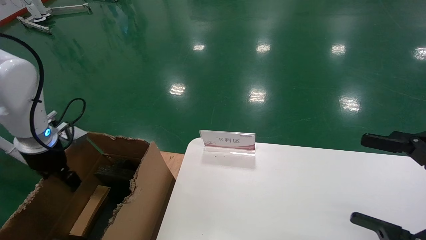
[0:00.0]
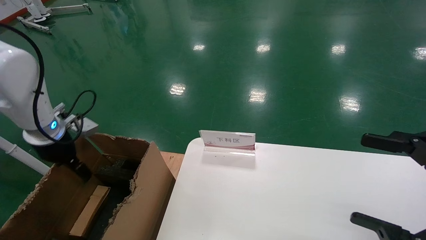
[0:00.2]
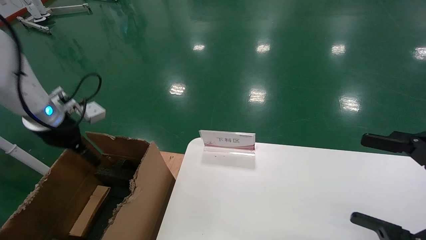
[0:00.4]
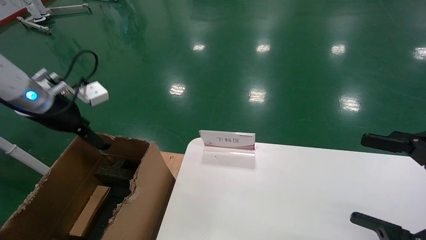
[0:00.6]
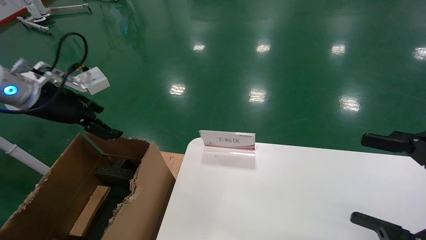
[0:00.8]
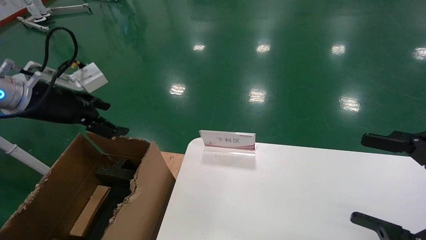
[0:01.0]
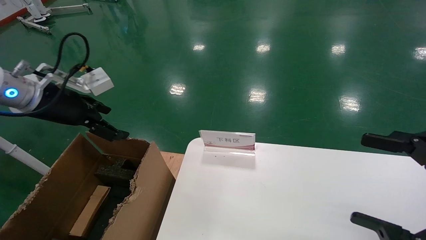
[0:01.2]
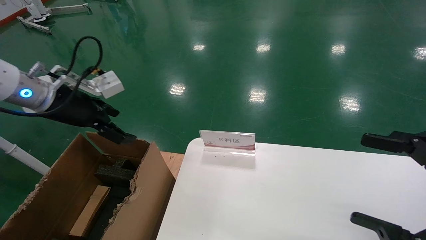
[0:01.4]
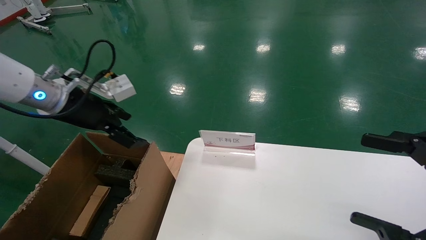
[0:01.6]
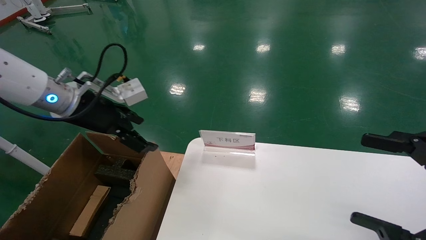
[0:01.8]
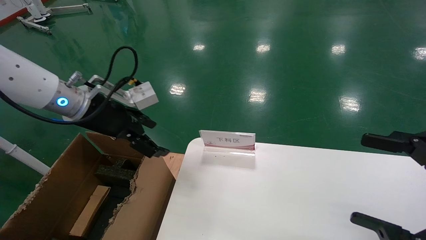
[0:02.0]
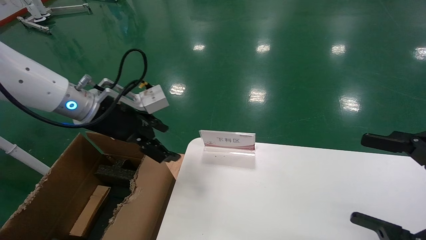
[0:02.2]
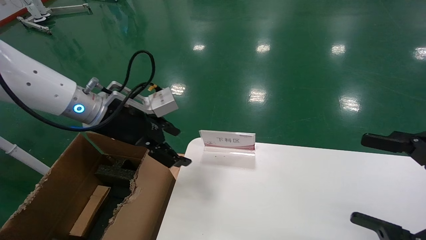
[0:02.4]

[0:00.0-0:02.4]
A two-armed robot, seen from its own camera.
Task of the whole recording: pick up the small cardboard box and load it into the large cardboard box.
0:00.0 to 0:01.2: The left gripper goes approximately 10 cm upward and to the right, and opens its fingers.
0:01.2 to 0:02.4: The left gripper travels to the right by approximately 10 cm.

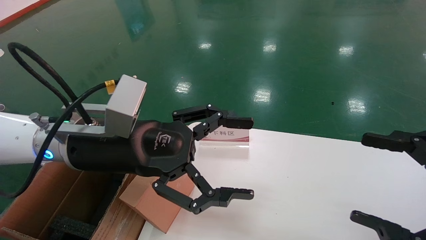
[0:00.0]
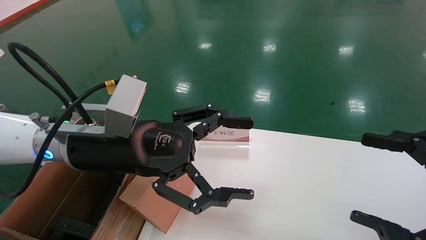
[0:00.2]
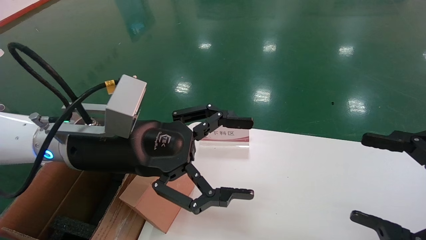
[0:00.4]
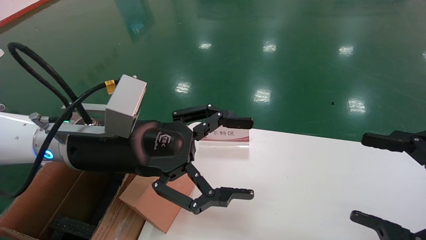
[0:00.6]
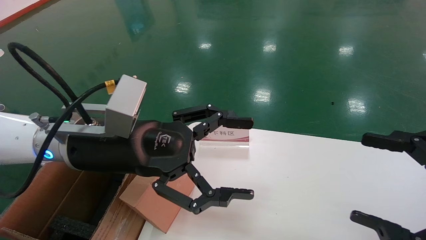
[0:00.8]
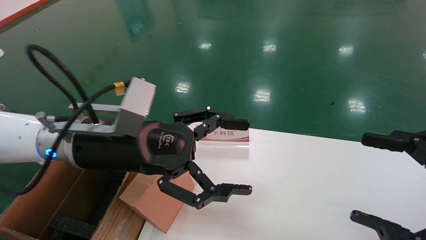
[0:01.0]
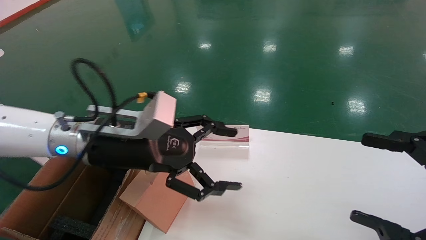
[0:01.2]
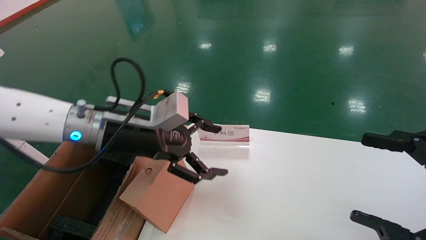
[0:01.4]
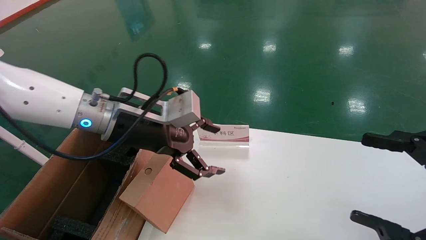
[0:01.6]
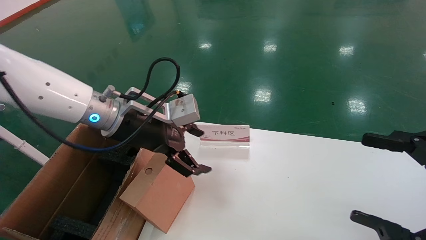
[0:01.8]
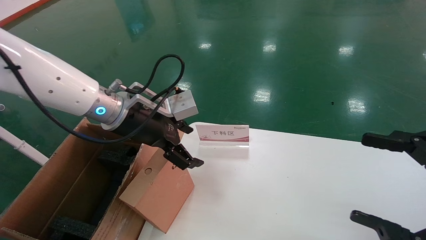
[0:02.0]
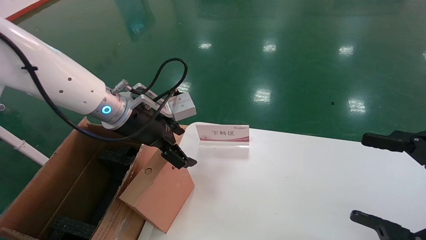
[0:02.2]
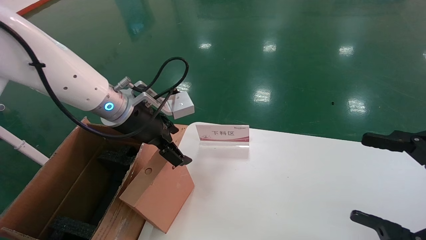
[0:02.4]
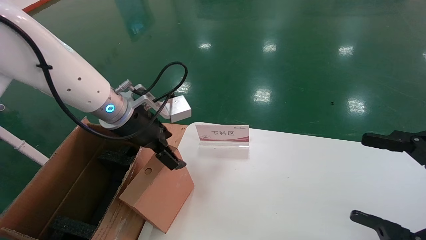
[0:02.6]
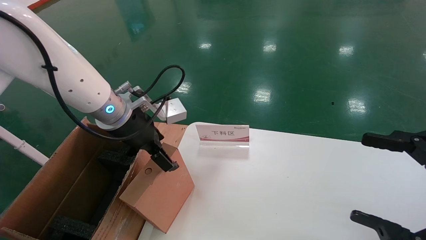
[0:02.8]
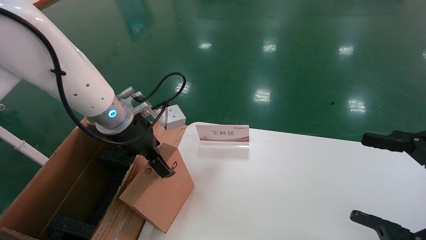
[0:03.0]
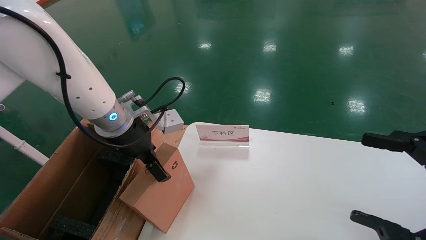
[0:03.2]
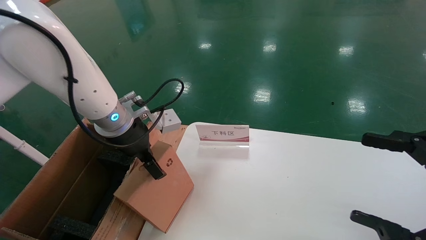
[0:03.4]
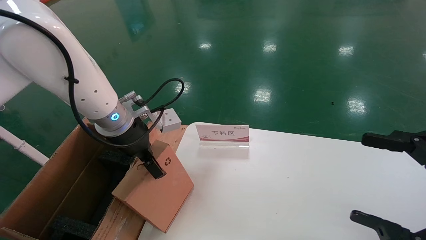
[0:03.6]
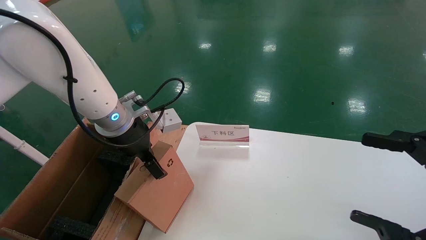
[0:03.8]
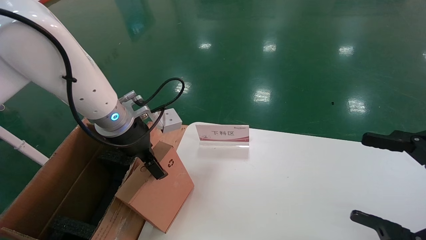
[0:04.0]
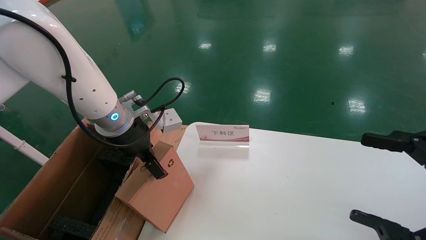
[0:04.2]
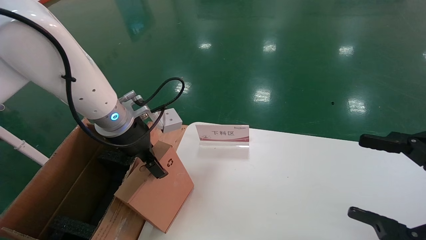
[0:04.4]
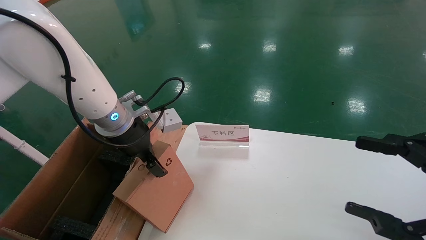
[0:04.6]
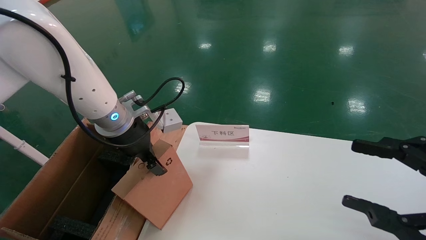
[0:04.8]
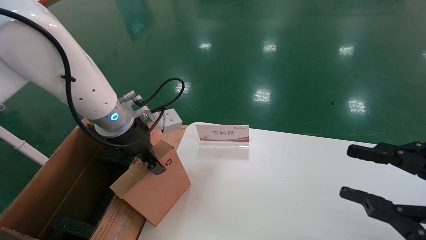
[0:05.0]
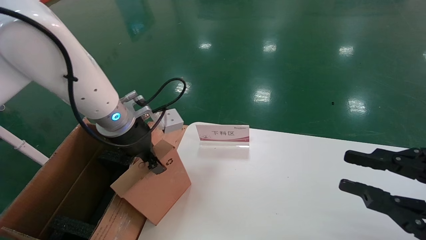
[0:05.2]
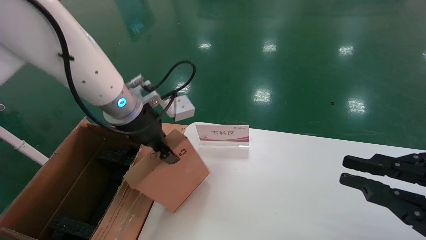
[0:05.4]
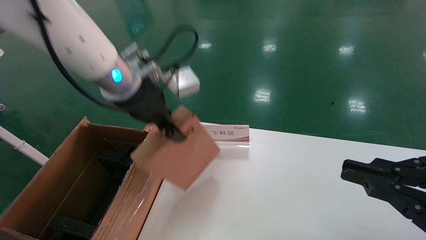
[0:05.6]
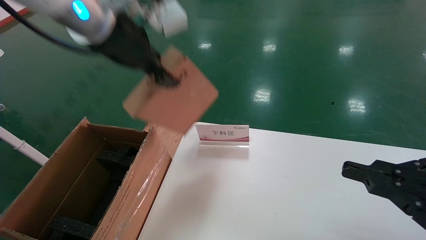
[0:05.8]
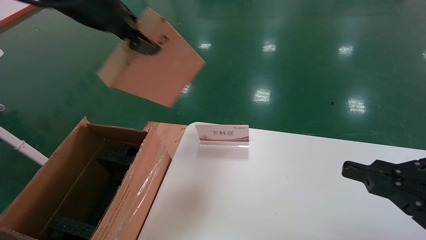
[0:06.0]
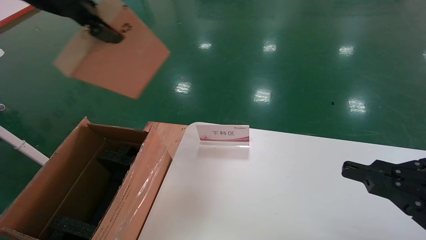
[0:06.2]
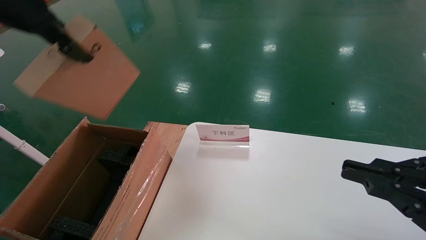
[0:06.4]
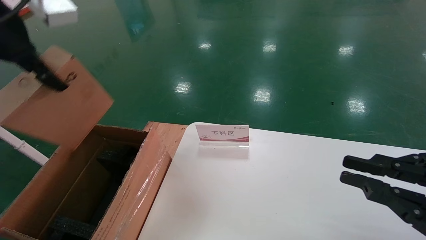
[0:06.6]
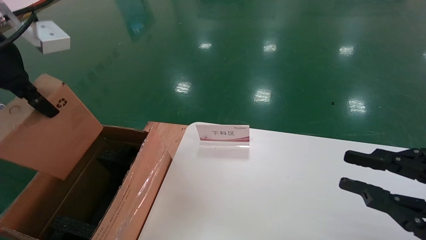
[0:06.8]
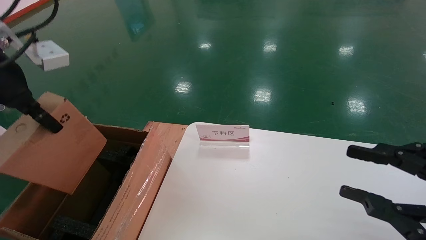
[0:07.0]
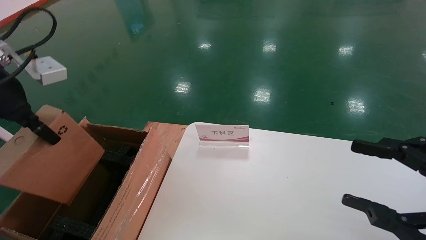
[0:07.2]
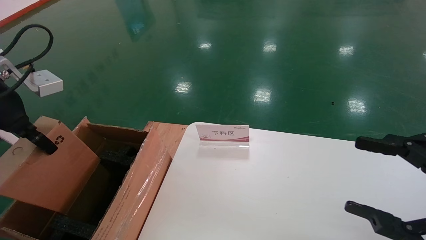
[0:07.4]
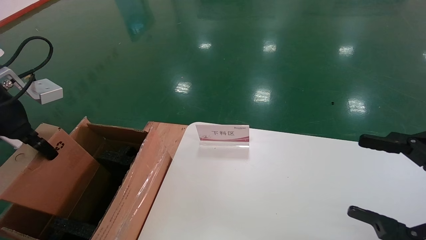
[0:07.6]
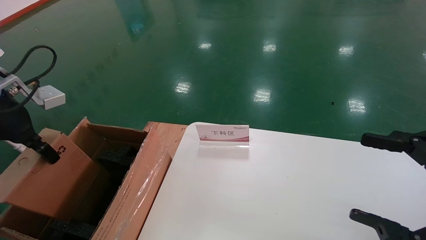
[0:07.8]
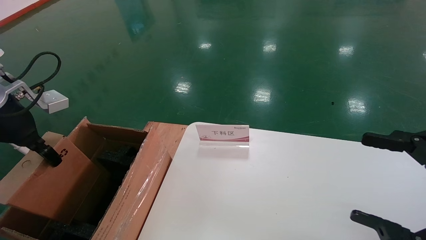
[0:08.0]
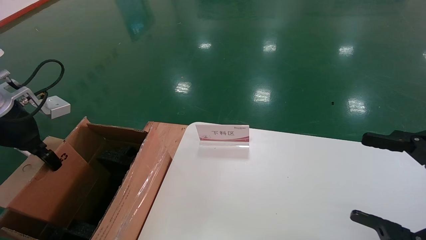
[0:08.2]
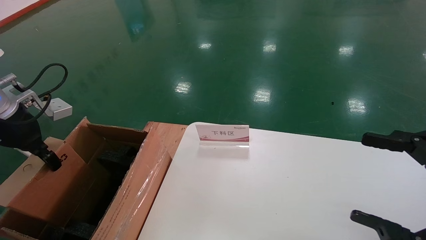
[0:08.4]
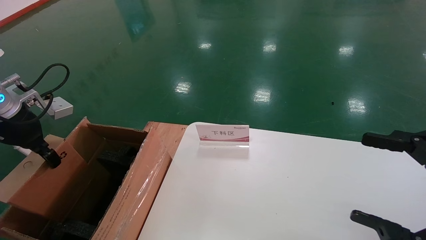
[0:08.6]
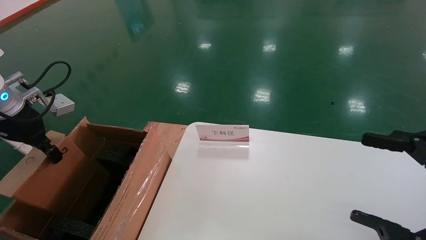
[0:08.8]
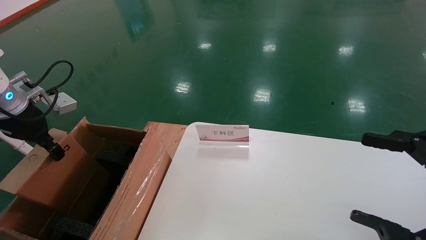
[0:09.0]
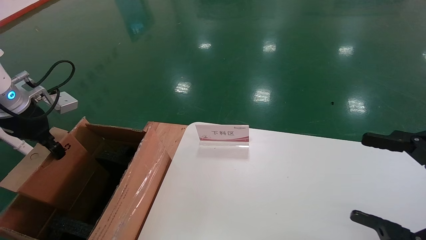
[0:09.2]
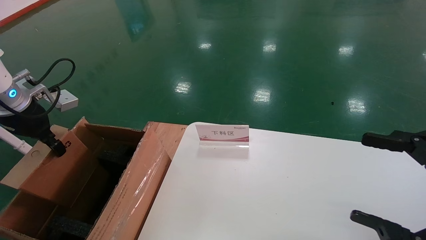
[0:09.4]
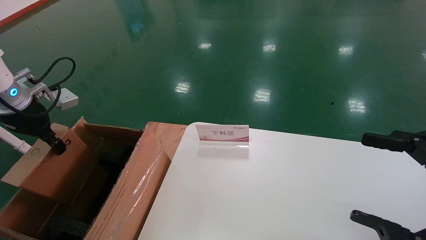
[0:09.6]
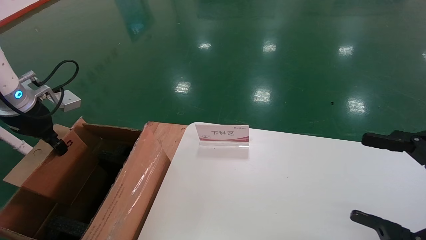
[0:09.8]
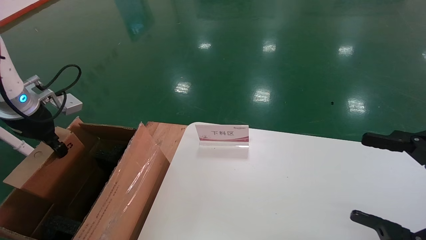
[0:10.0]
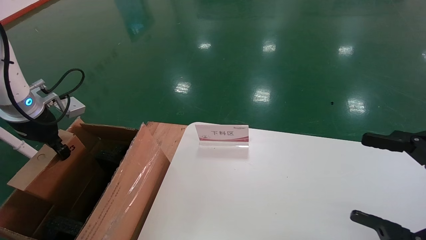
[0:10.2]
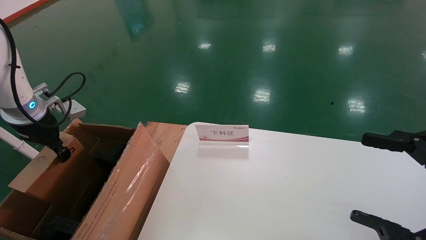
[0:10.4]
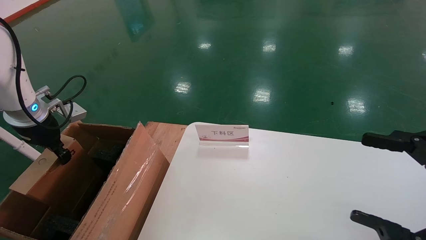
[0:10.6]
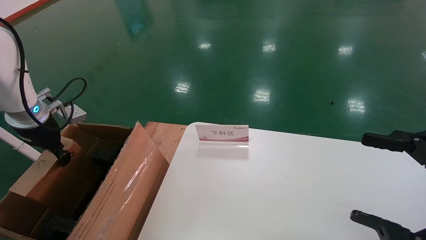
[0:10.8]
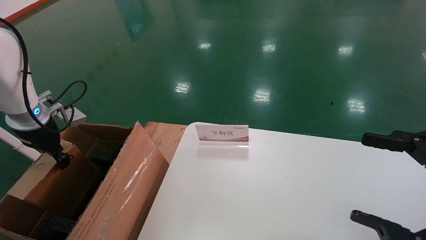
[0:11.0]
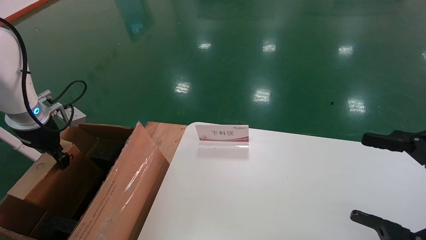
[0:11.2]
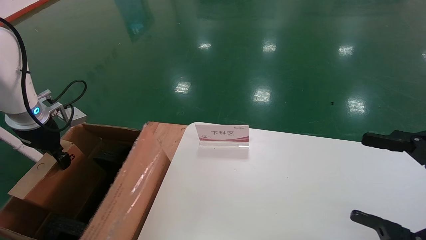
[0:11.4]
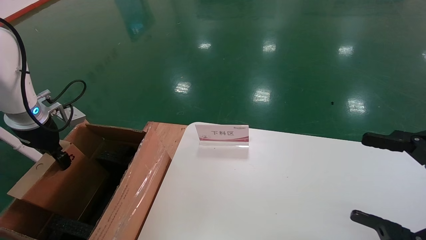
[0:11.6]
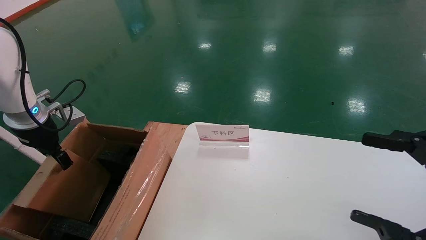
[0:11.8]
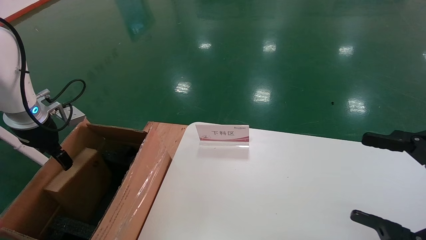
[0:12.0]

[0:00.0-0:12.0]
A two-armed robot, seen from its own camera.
Task of the whole recording: pick up the small cardboard box and load it into the large cardboard box.
Step, 0:01.2 to 0:04.6: Pick up the mouse and power cord box.
0:00.0 to 0:01.6: The left gripper is displaced forward by roughly 5 cm.
0:03.0 to 0:04.4: There are only small adjustments of the grippers.
0:04.4 to 0:06.0: The right gripper closes up. The left gripper is displaced upward by about 20 cm, and closes its fingers.
0:06.0 to 0:07.6: The right gripper opens up. Meanwhile the left gripper heads to the left and downward, covering some 20 cm.
0:07.6 to 0:09.0: The left gripper goes about 5 cm forward.
0:09.0 to 0:10.4: The grippers move only a little.
0:10.4 to 0:12.0: The left gripper opens its fingers.

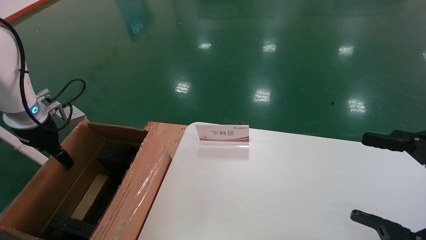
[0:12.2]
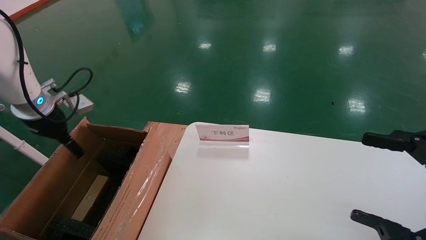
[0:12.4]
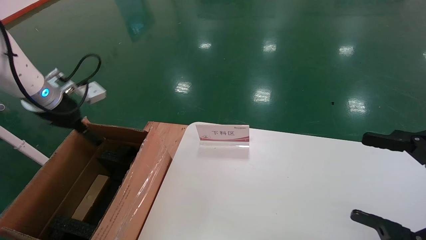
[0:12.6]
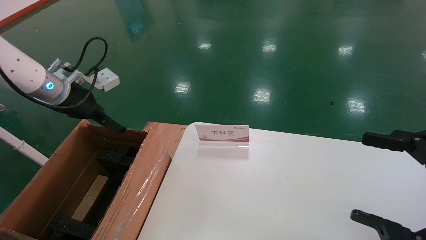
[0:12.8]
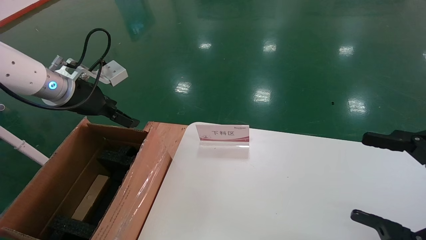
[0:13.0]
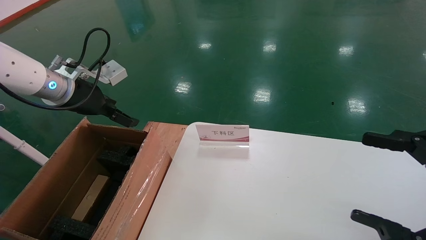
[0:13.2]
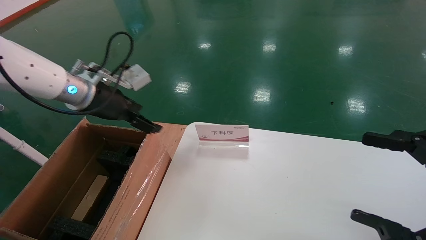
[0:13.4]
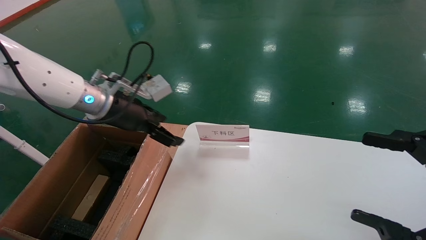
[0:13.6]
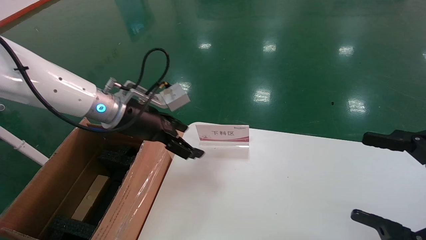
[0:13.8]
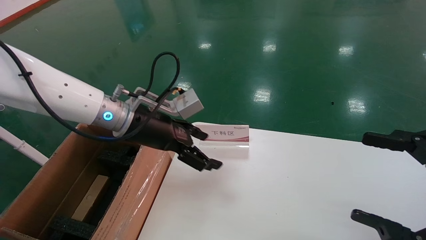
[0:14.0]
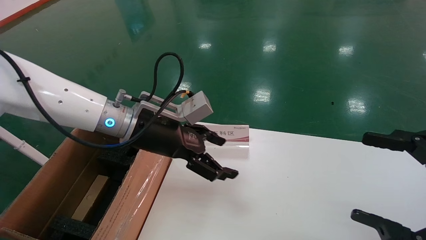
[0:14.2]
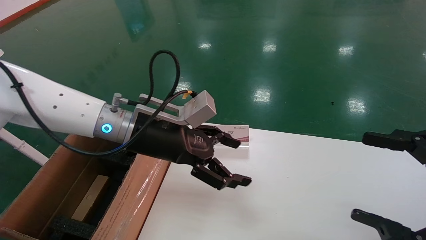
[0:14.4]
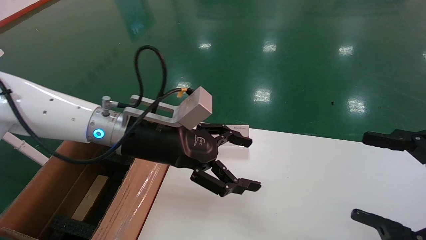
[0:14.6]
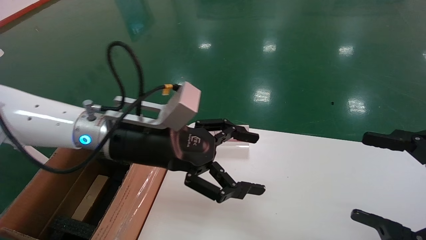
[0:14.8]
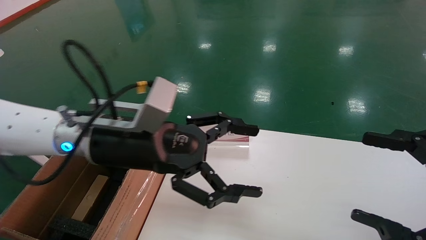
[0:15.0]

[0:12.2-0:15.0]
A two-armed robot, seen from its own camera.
Task of the whole recording: pick up the small cardboard box and load it into the large cardboard box.
0:12.2 to 0:13.6: The left gripper goes about 20 cm to the right.
0:13.6 to 0:15.0: The left gripper heads backward and to the right, covering approximately 15 cm.
